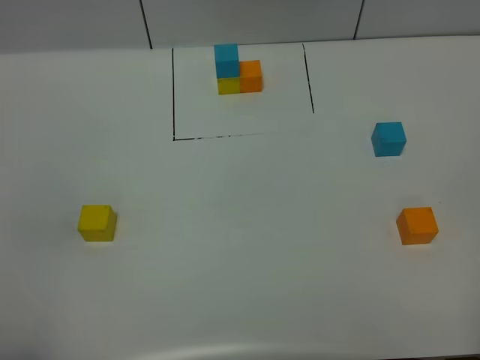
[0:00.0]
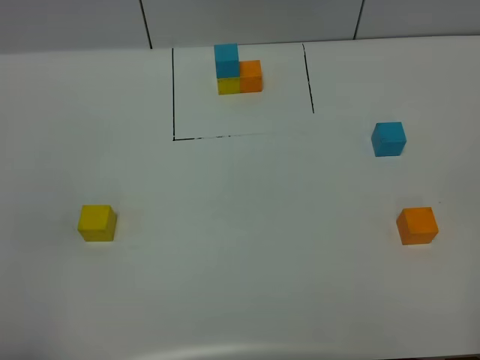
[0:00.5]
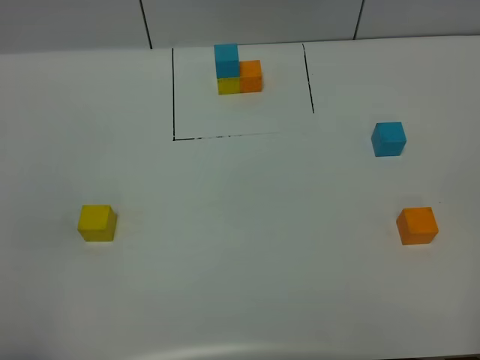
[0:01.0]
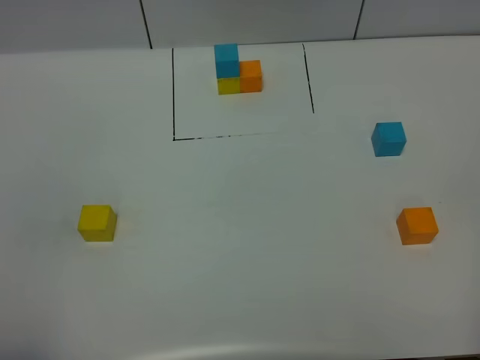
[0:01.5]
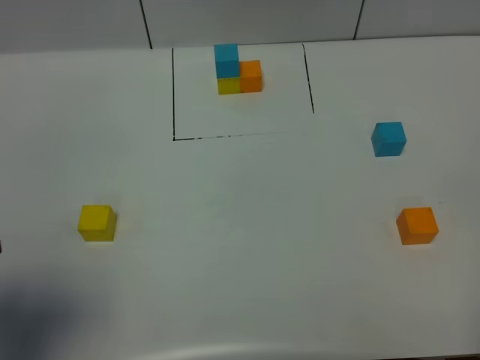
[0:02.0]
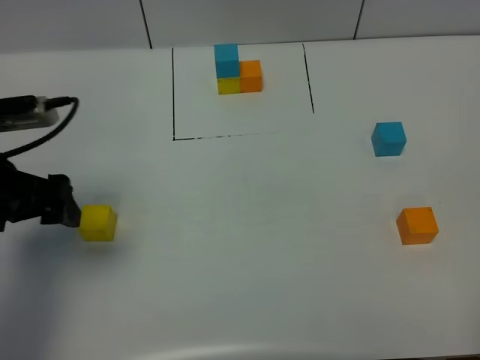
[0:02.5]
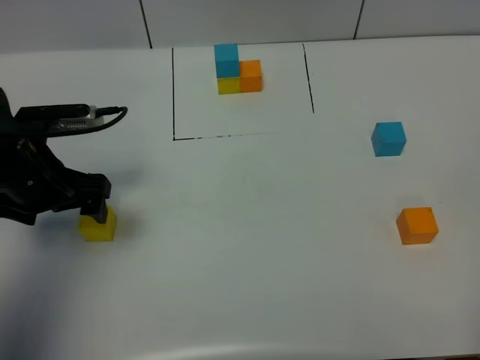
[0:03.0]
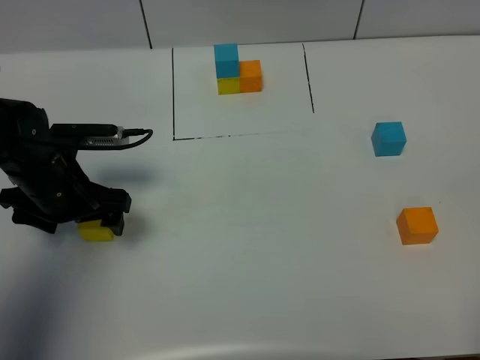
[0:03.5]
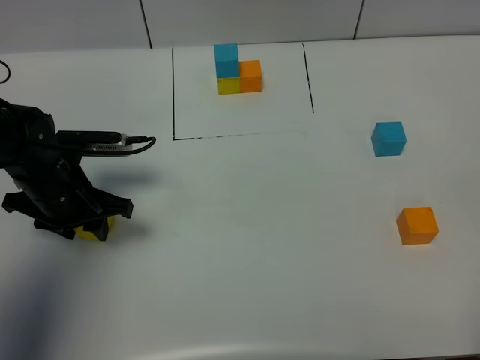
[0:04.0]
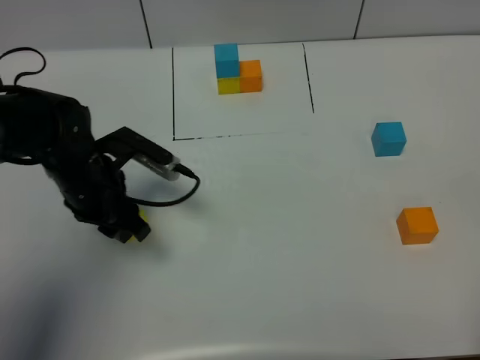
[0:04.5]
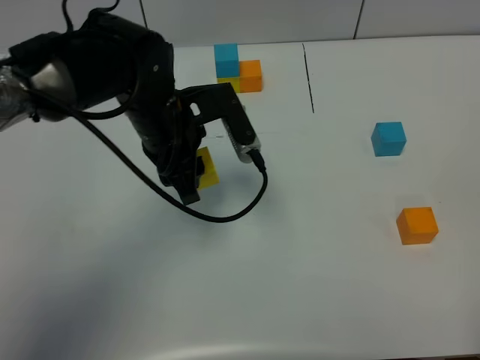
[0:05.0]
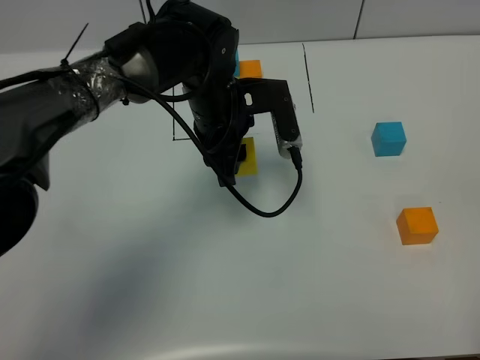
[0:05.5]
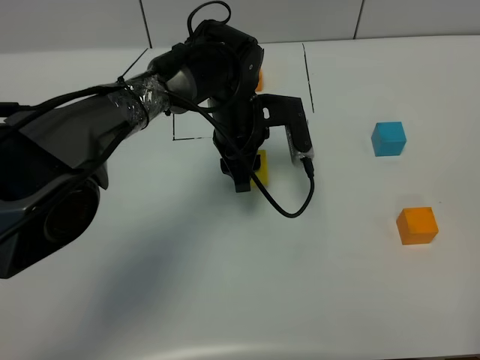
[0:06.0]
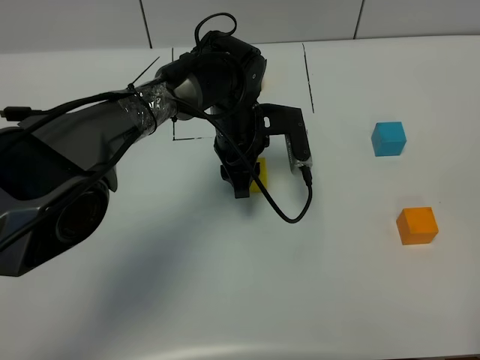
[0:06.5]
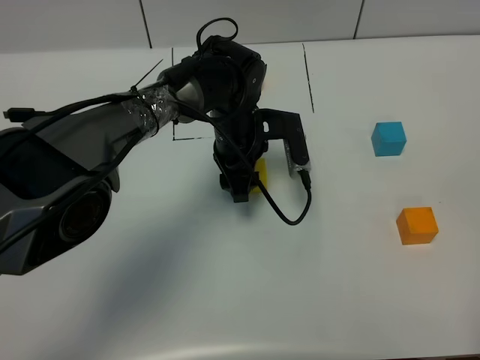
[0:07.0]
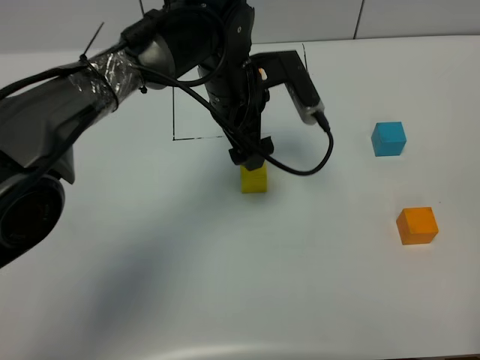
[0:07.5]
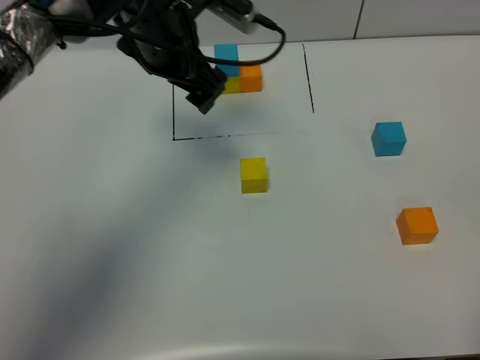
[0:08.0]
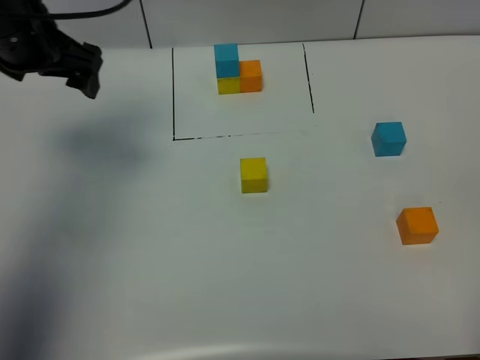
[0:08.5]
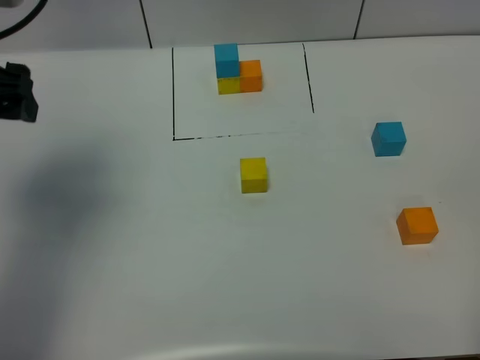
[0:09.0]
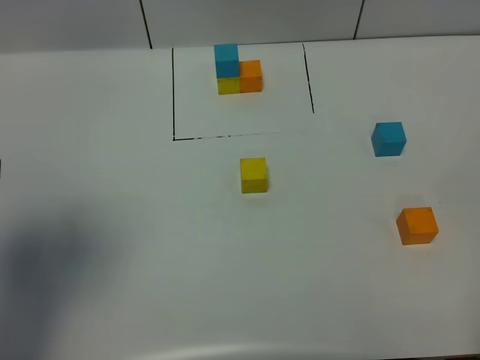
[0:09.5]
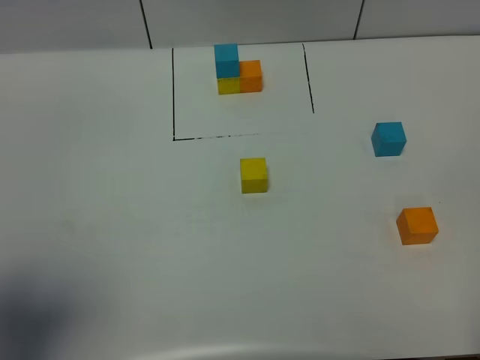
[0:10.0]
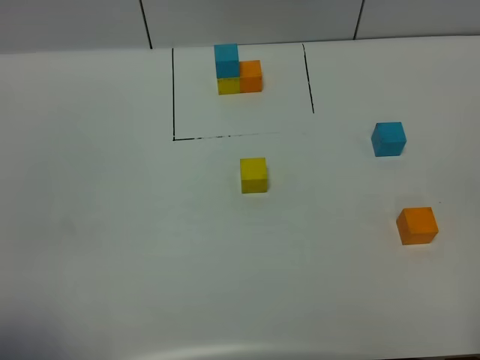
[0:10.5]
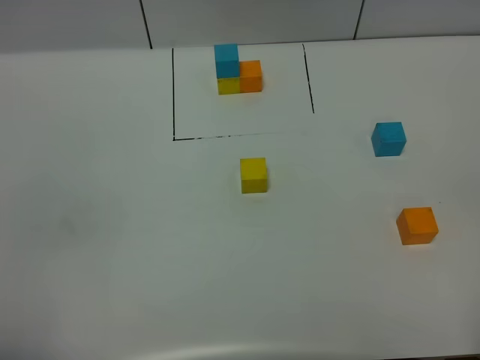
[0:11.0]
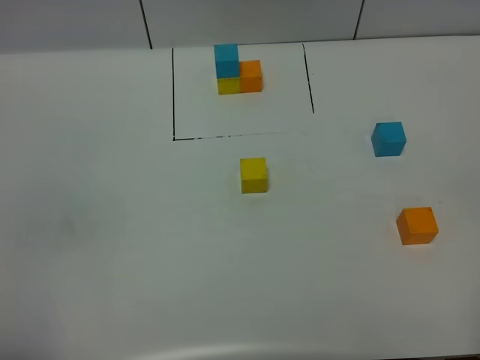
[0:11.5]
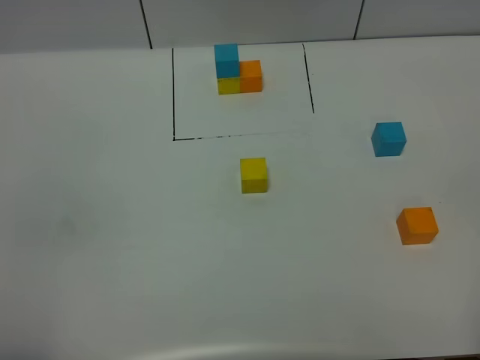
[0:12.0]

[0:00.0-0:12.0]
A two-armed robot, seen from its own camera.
Task of the whole recording: According to the building block template in front, assemble the scattered blocks together.
Step, 0:02.0 to 0:07.0: Put the yellow cube in the center of the table.
0:00.0 to 0:02.0: The left gripper moves forward, roughly 10 cm, and opens.
0:02.0 to 0:04.0: The left gripper is displaced forward and downward by roughly 25 cm, and closes.
0:04.0 to 0:06.0: The left gripper is displaced to the right and forward by some 25 cm.
0:06.0 to 0:08.0: The left gripper moves upward and to the left, about 15 cm, and opens up.
0:08.0 to 0:10.0: The left gripper travels backward and to the left by about 40 cm.
0:10.0 to 0:12.0: The left gripper heads backward and downward, covering about 10 cm, and closes.

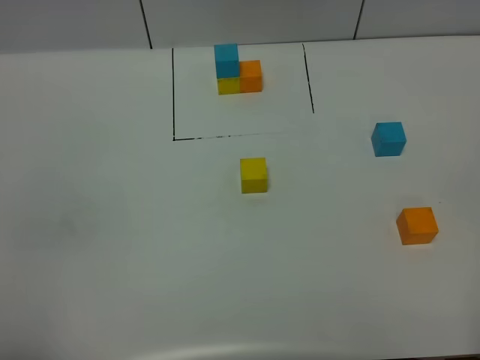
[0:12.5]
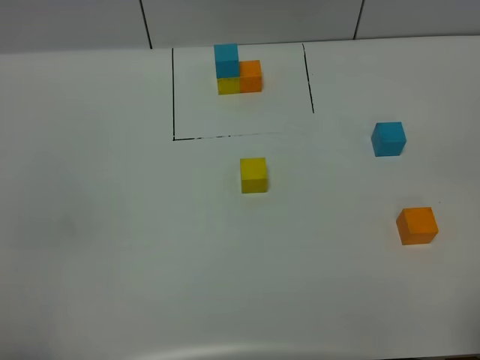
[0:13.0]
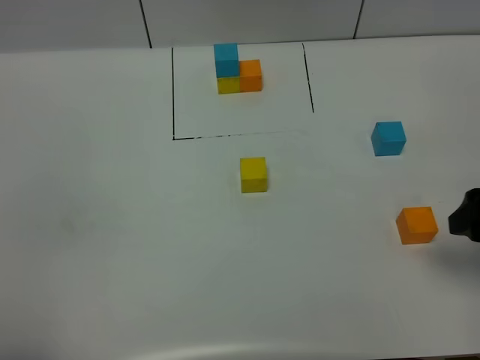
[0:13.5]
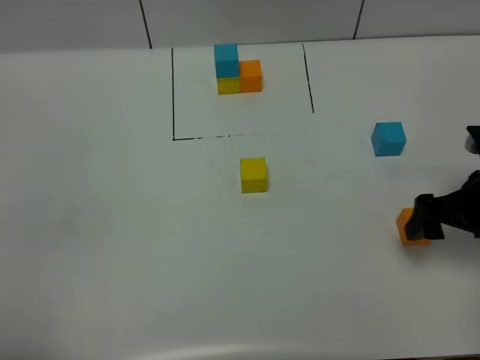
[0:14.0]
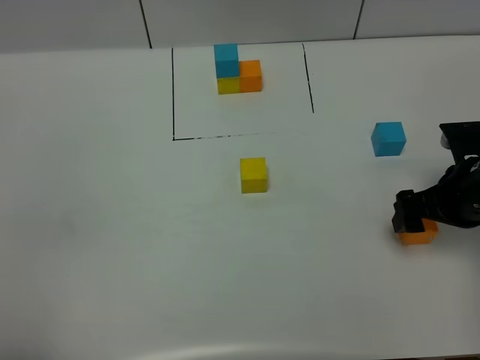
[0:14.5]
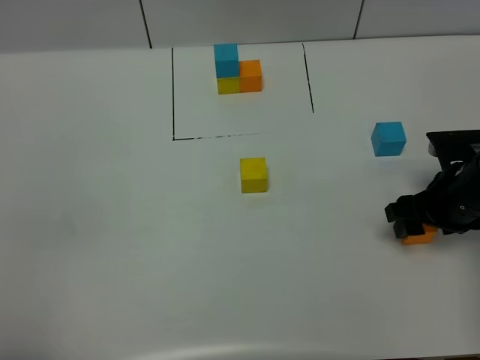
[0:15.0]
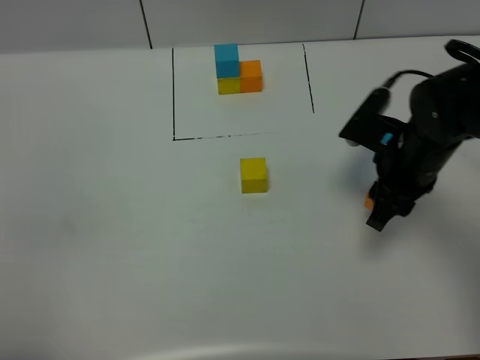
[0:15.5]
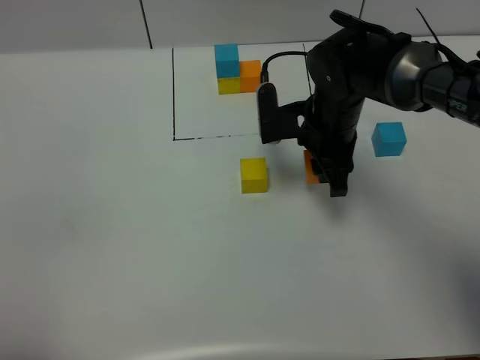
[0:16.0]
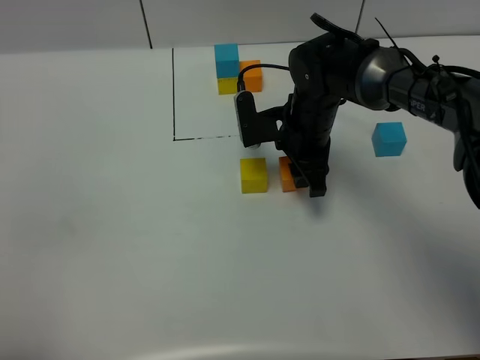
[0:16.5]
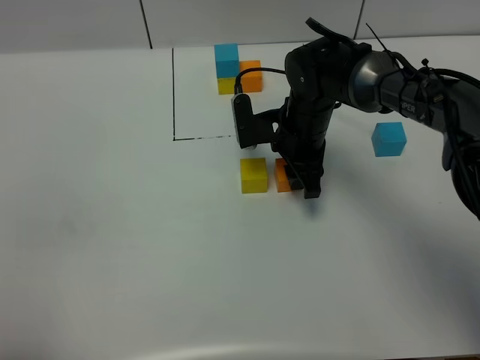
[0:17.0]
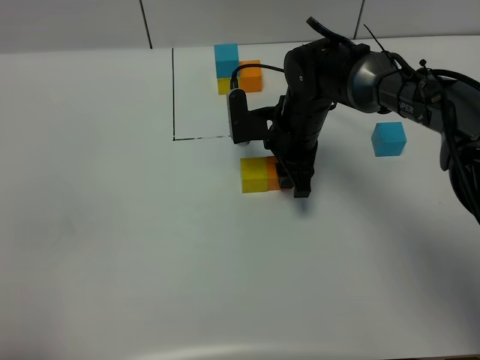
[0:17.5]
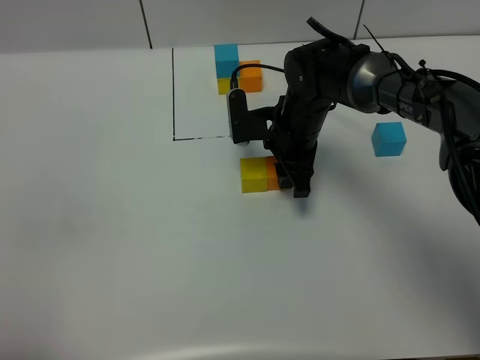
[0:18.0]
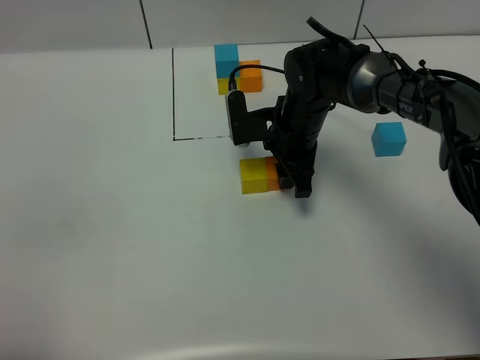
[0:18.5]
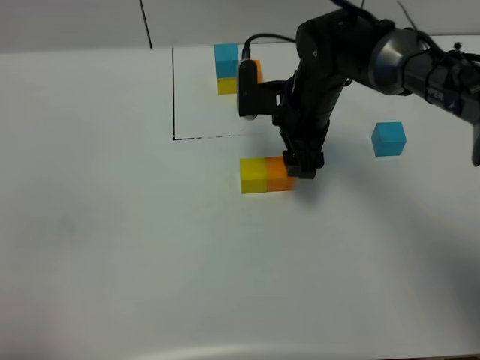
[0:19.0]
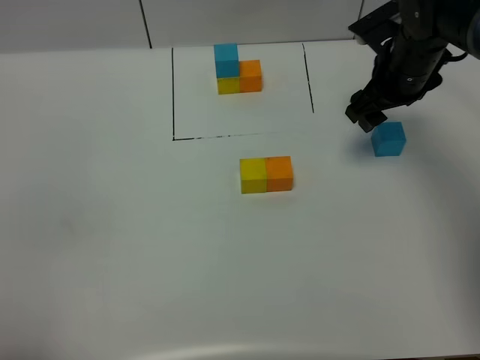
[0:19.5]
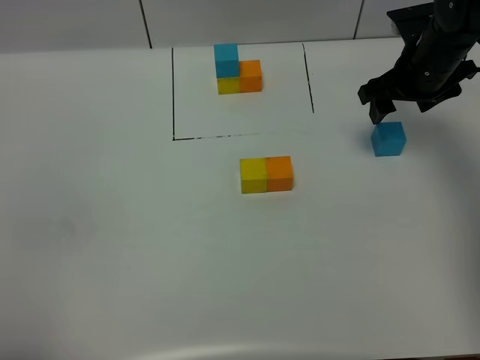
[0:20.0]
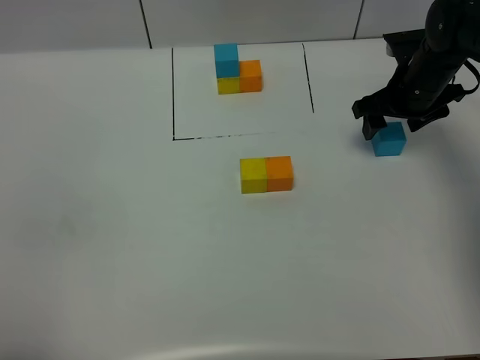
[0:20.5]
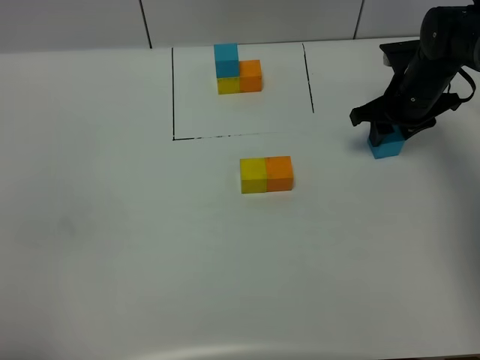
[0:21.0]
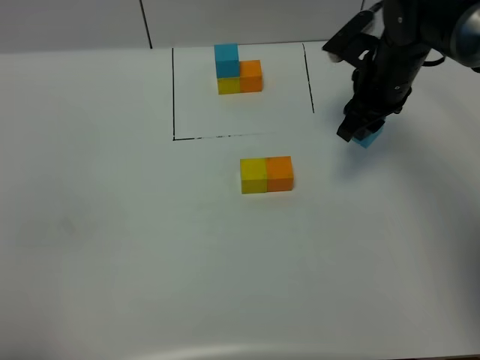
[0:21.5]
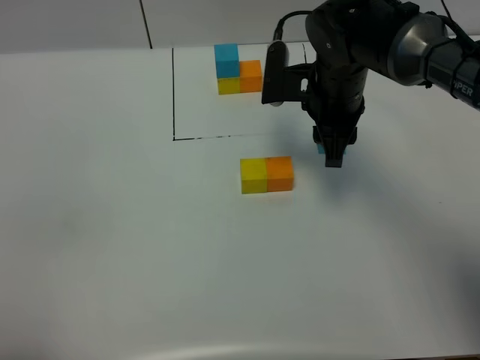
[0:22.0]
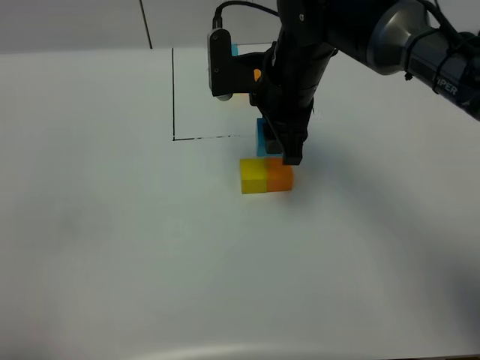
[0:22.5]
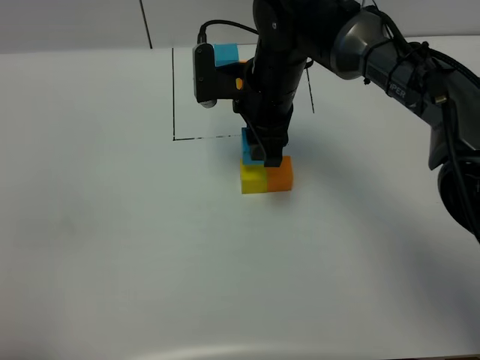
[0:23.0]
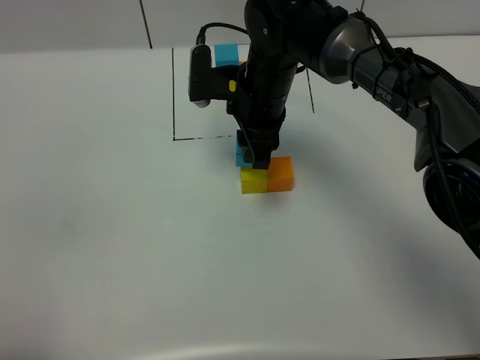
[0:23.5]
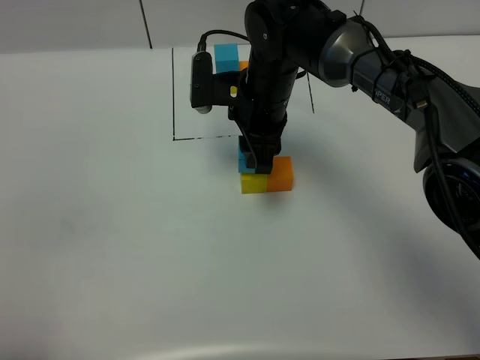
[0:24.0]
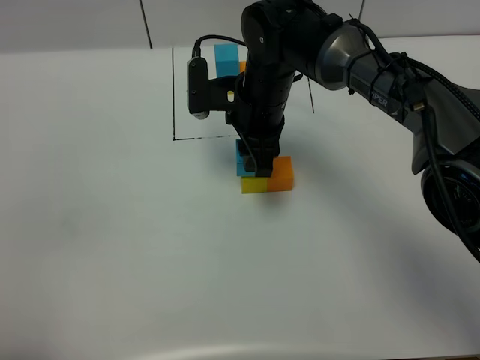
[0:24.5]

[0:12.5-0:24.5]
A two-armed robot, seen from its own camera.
Task of the whole recording: According to the building block template in front, assemble the scattered blocks together.
Step, 0:12.5 to 0:18.5: Put the orange cube on the right of the yellow cube.
0:12.5 to 0:14.5: The right gripper travels forward and downward by some 30 cm.
0:14.5 to 0:16.5: The right gripper shifts about 20 cm to the left and forward, and closes up.
0:16.5 to 0:18.5: The grippers stay close to where they were, moving slightly.
0:18.5 to 0:20.5: The right gripper moves to the right, roughly 15 cm, and opens.
0:20.5 to 0:22.5: The right gripper heads to the left, backward and upward, covering about 20 cm, and closes its fingers.
0:22.5 to 0:24.5: The right gripper moves some 5 cm.

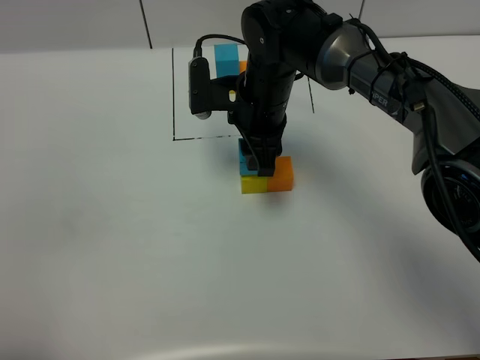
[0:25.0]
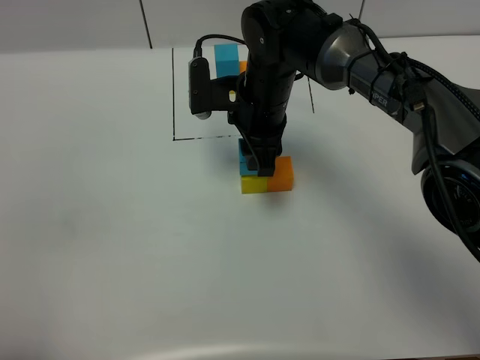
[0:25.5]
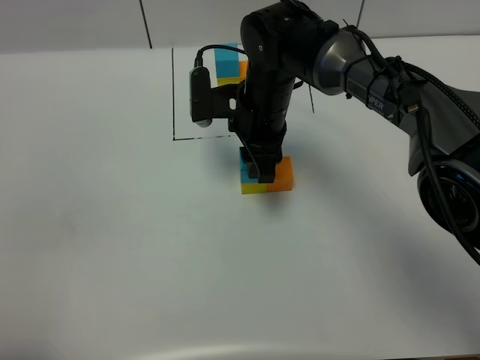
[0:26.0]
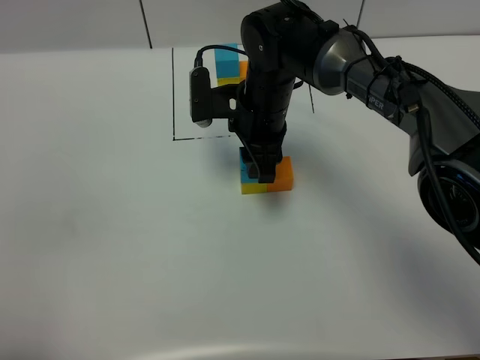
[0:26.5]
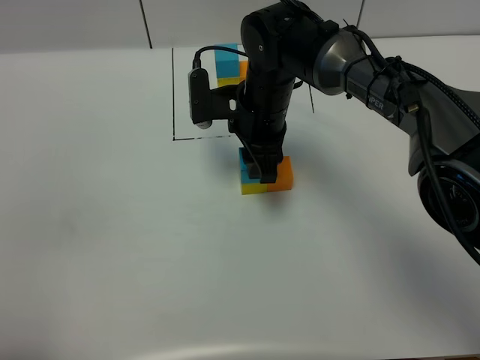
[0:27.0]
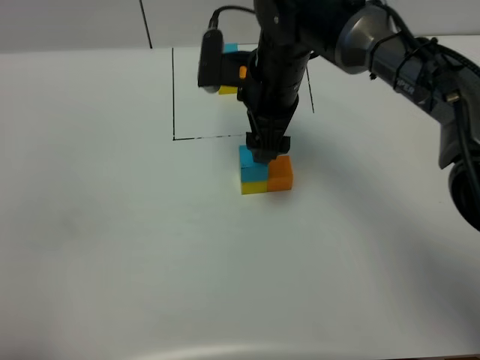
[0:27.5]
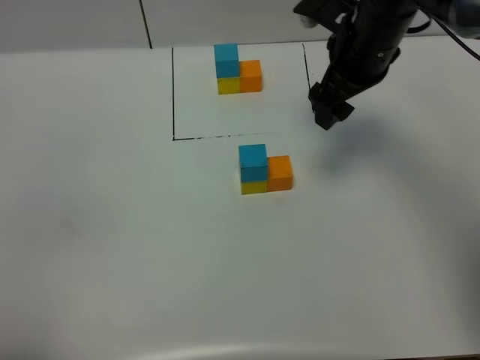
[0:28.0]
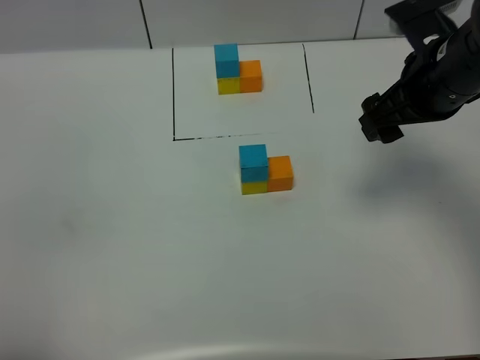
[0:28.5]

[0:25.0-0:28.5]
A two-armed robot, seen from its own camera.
Task of the whole recording: According to the building block template in front, assemble the scattered blocks together.
Step, 0:25.0 to 0:27.0: Put the blue cube on the yellow cube.
0:25.0 to 0:27.0: Both grippers stay put.
0:27.0 to 0:28.5: The right gripper travels to the right and upward by some 20 cm, and opens up.
